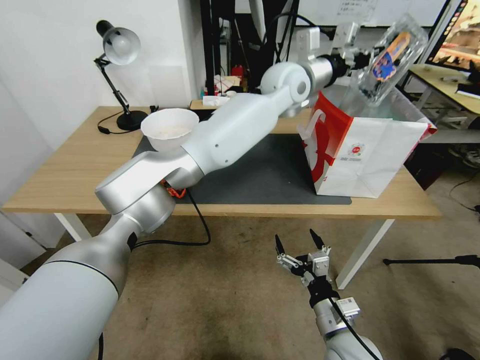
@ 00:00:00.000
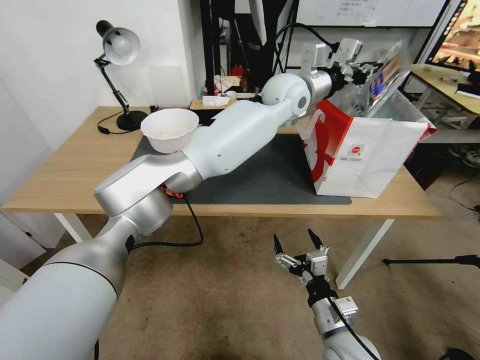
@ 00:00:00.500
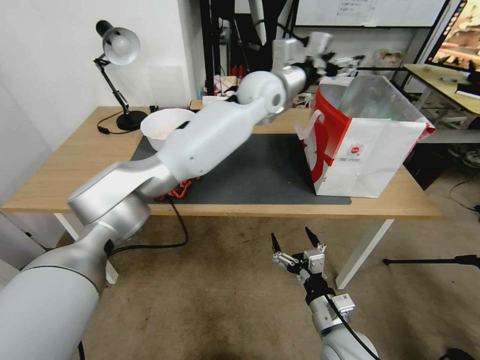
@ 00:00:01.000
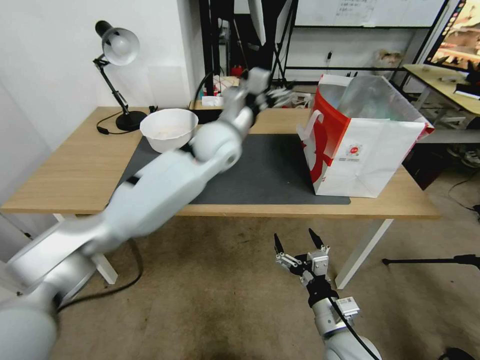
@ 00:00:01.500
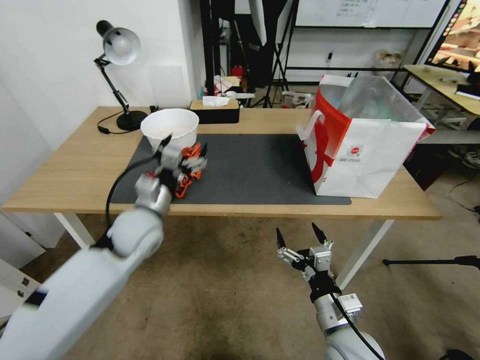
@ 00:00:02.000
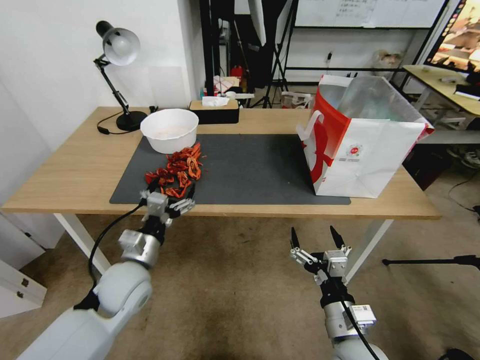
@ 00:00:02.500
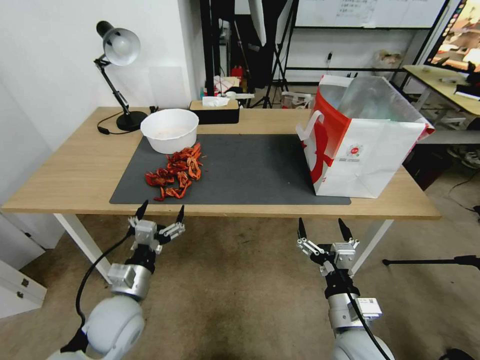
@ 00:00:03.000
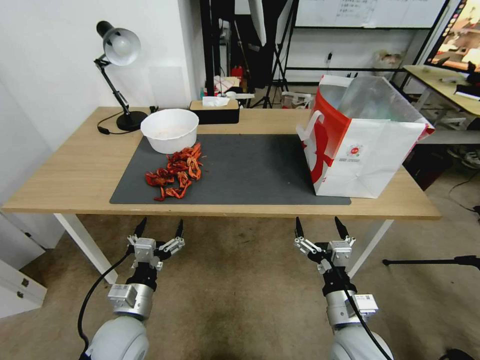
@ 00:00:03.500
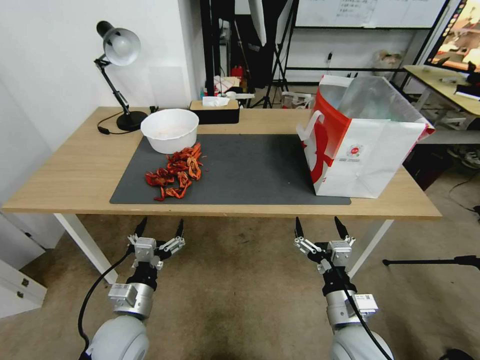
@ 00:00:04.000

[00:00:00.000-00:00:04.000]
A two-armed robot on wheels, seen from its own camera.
Task of the whole recording: Close the takeout container lid, then place the container into the takeout bag.
00:00:00.000 to 00:00:02.000: The left gripper moves to the left, downward and backward, some 40 cm, and opens up.
00:00:02.000 to 00:00:04.000: The left gripper goes about 20 cm backward and downward.
